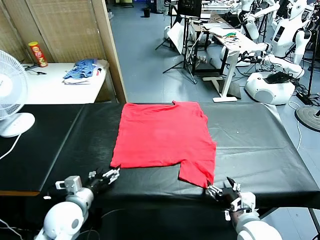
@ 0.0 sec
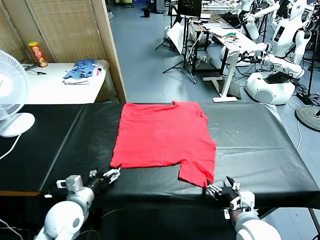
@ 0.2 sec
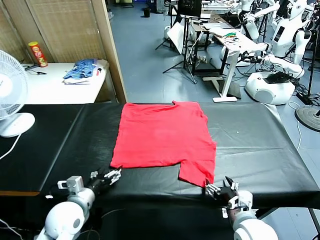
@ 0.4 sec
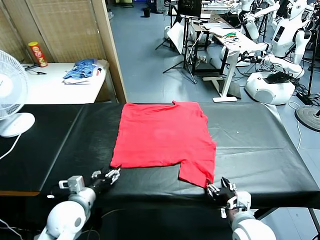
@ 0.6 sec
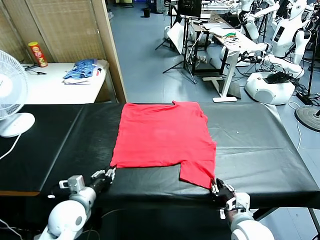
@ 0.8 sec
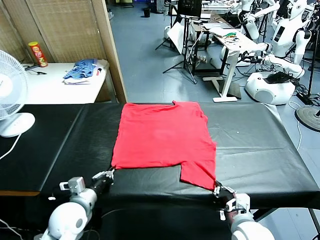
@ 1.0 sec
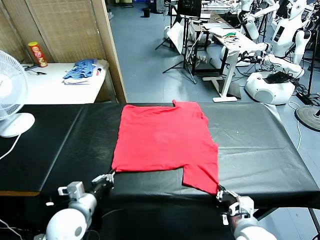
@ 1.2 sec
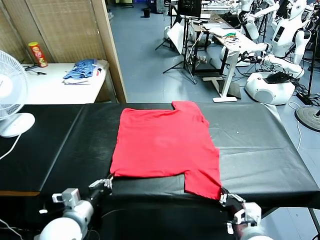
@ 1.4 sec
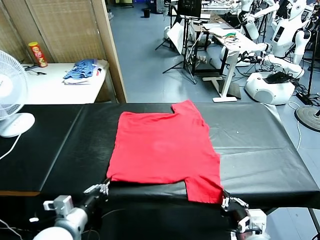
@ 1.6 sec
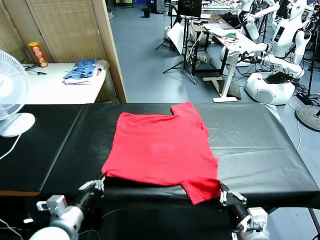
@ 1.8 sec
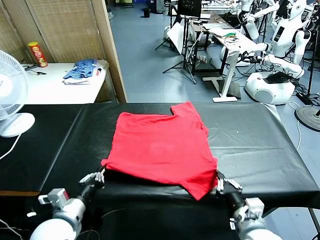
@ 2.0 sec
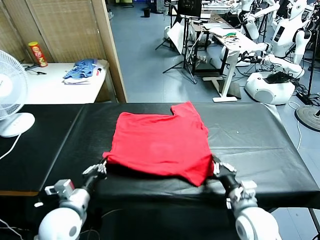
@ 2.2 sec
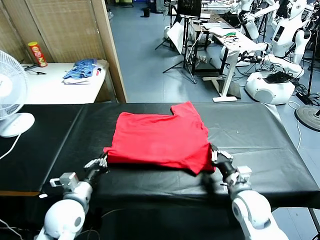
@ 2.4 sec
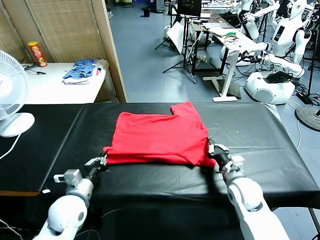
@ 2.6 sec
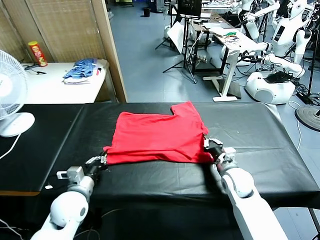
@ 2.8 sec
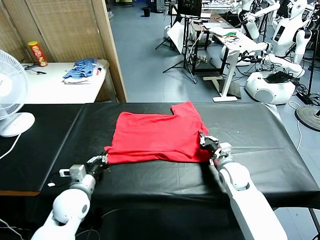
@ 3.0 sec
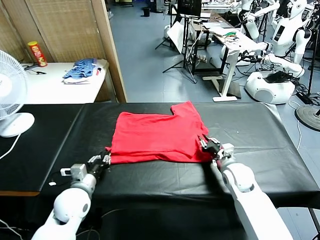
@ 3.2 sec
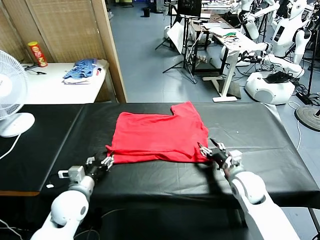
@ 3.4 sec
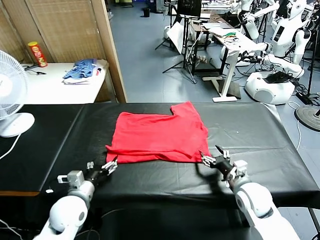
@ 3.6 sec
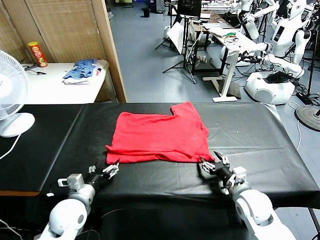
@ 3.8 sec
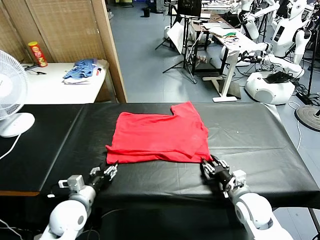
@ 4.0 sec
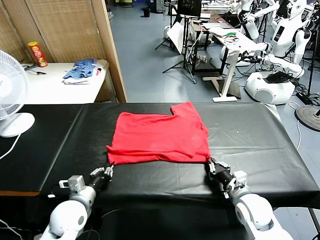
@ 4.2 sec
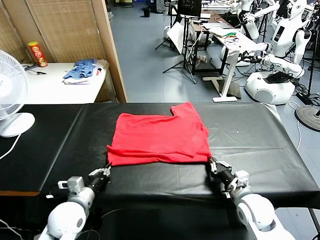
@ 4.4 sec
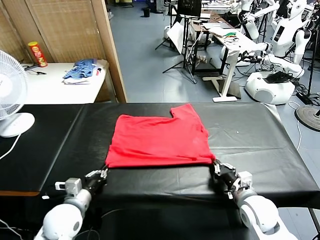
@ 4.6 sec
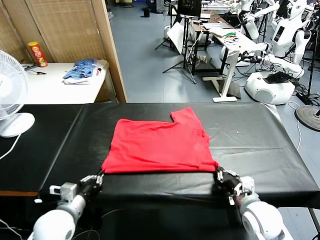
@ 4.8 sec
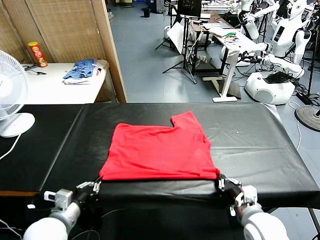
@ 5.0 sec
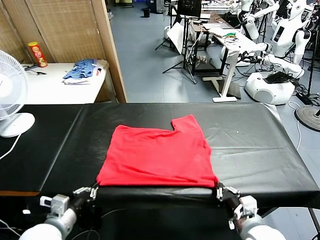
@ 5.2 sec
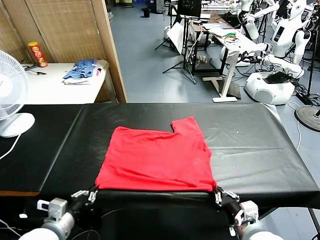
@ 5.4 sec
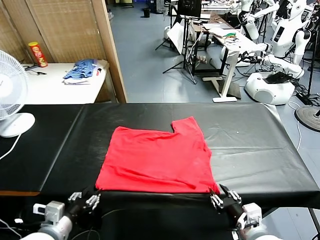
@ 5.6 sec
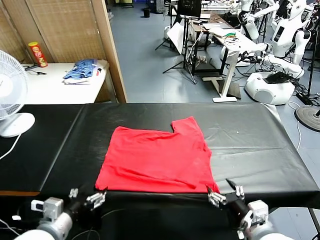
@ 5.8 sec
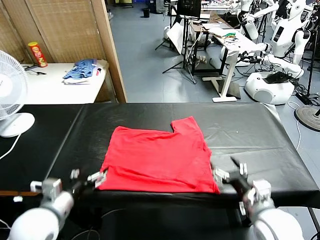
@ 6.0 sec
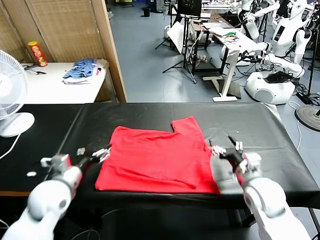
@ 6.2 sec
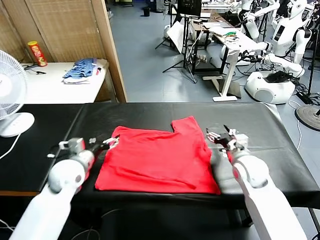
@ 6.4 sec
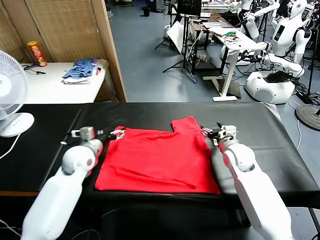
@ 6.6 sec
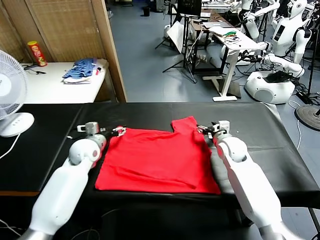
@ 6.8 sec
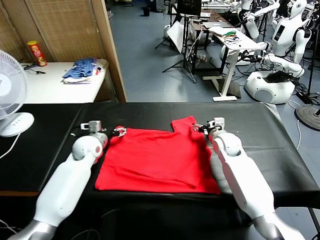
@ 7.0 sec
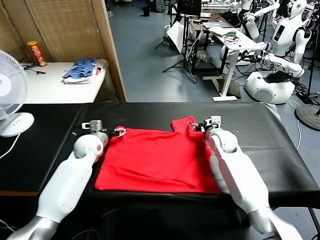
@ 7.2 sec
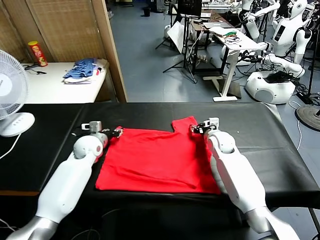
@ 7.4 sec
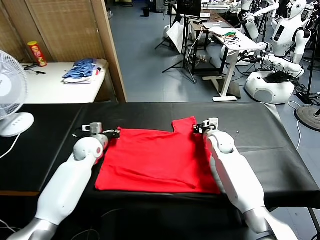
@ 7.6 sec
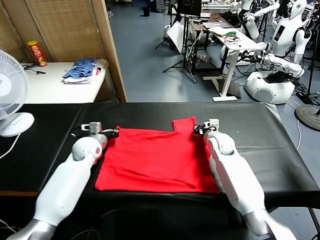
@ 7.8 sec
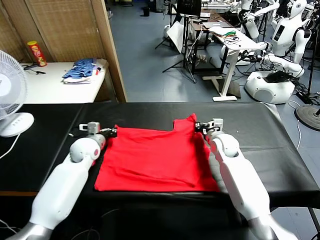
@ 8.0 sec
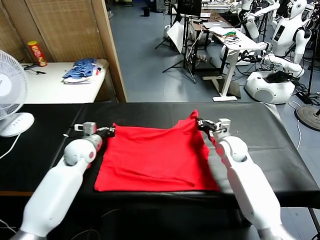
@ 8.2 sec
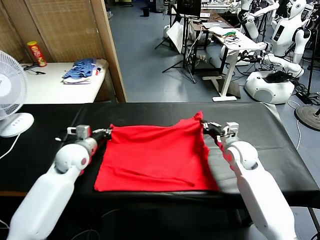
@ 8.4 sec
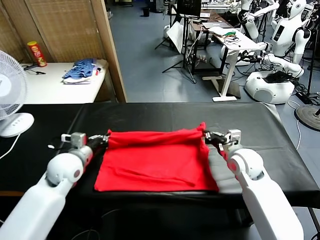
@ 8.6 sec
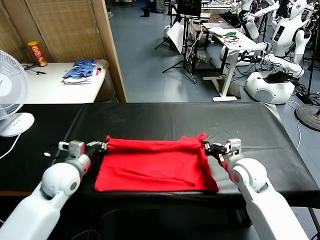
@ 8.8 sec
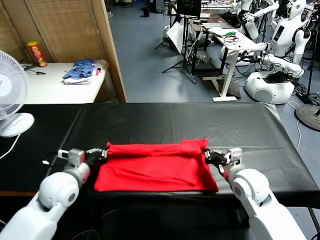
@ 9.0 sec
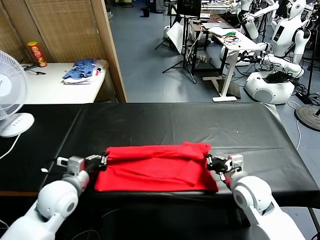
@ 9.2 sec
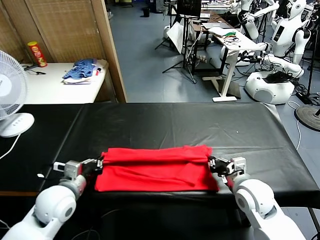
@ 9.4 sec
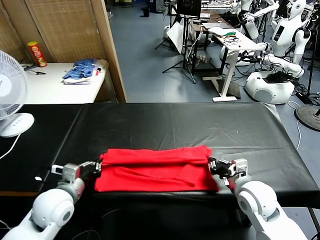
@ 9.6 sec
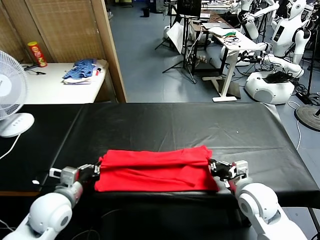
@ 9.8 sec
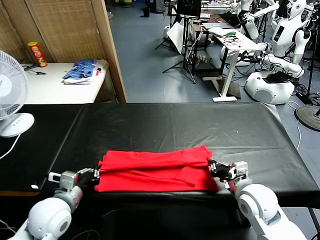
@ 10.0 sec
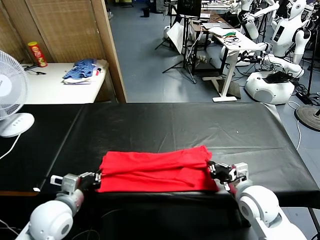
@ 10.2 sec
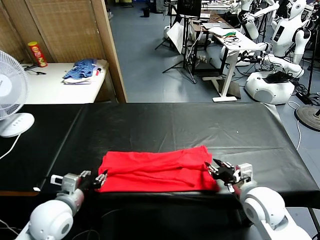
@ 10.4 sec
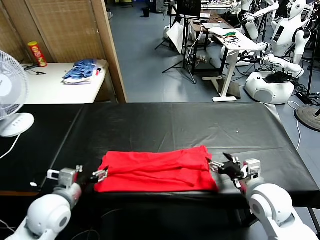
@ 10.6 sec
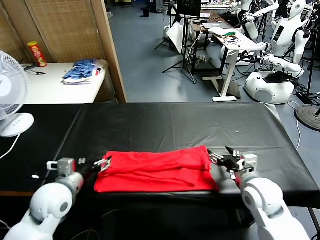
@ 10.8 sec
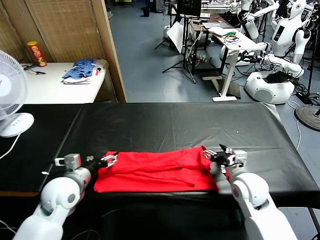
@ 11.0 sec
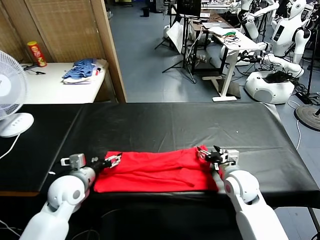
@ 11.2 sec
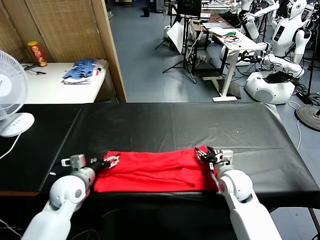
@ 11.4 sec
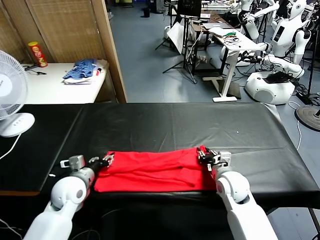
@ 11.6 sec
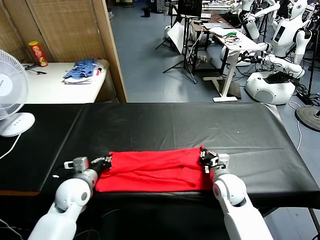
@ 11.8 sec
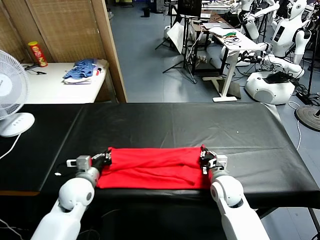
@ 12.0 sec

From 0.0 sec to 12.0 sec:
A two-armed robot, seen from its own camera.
Task of the whole recording: fold and organize the clothes.
Step, from 0.0 sec to 1.0 sec: use both grippers simultaneously to clamp the lower edge of the clothing fabric.
Step, from 1.4 sec to 3.4 sec: use both grippers to drag the lower edge of the fabric forward and fold it over the upper edge.
Step, from 3.6 sec to 5.6 sec: Drag the clothes downward with both gripper.
Step, from 5.8 sec to 7.8 sec: use both grippers simultaneously to clamp the upper edge of the clothing fabric.
Step, from 8.0 sec to 10.4 sec: use both grippers to drag the upper edge of the fabric backward and fold it over the lower edge.
From 1.6 sec to 3.0 sec: The right gripper heads forward, covering some 25 cm, while the left gripper shifts some 10 cm forward.
From 3.0 sec to 4.4 sec: The right gripper moves backward, approximately 10 cm, and opens, then closes again. The left gripper opens, then closes once more.
From 4.4 sec to 6.0 sec: The grippers both shift upward by approximately 10 cm. The right gripper travels backward and back again, about 10 cm each way, and opens up. Meanwhile the left gripper opens up.
From 6.0 sec to 7.6 sec: The two grippers go about 25 cm forward. The left gripper closes its fingers; the right gripper closes its fingers.
From 7.6 sec to 9.0 sec: The grippers both shift backward by about 20 cm.
From 9.0 sec to 10.4 sec: The left gripper moves backward, roughly 5 cm, and opens its fingers, while the right gripper ends up some 5 cm from where it was, and opens.
From 10.4 sec to 12.0 sec: The right gripper is displaced downward, forward and to the left by about 15 cm, and closes up, while the left gripper shifts some 10 cm forward and downward, and closes its fingers.

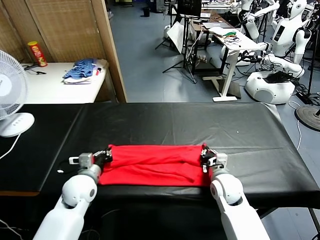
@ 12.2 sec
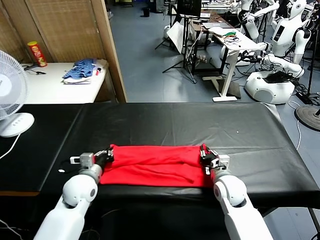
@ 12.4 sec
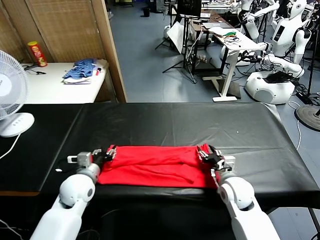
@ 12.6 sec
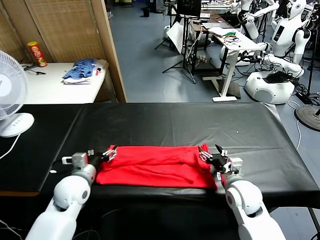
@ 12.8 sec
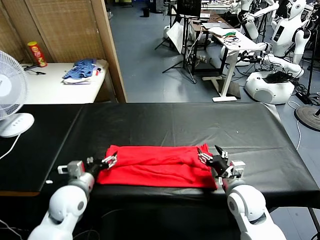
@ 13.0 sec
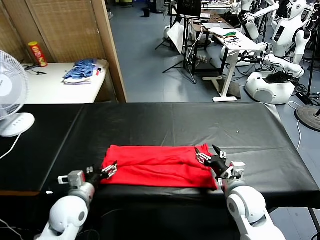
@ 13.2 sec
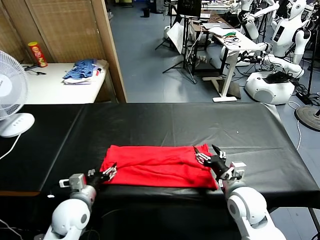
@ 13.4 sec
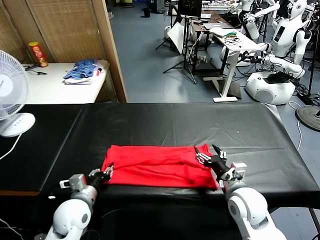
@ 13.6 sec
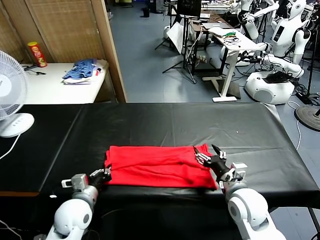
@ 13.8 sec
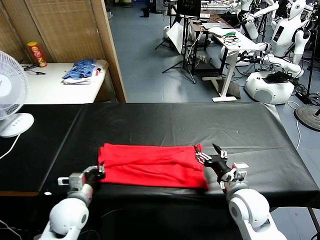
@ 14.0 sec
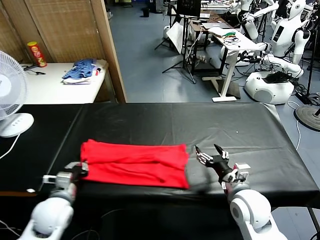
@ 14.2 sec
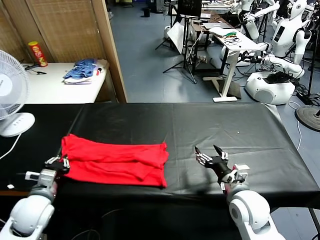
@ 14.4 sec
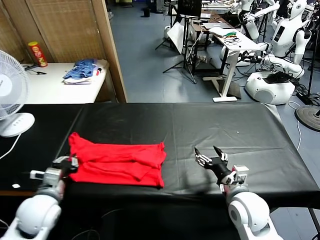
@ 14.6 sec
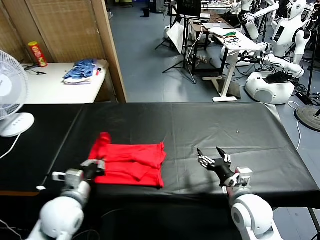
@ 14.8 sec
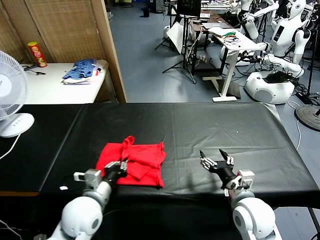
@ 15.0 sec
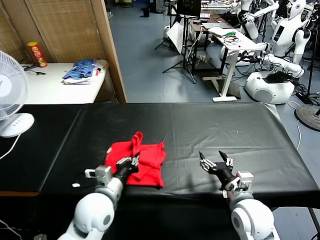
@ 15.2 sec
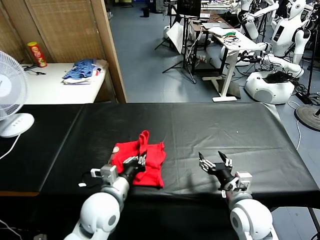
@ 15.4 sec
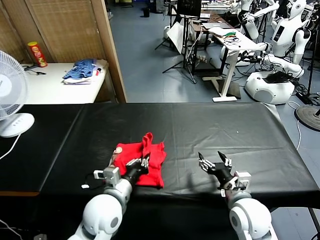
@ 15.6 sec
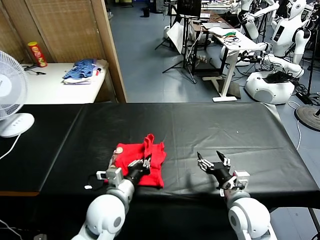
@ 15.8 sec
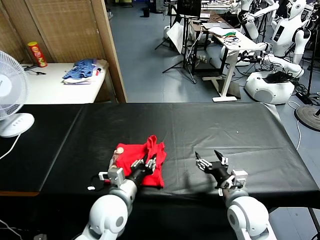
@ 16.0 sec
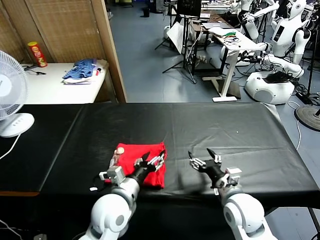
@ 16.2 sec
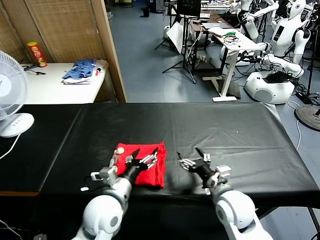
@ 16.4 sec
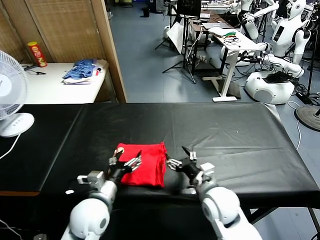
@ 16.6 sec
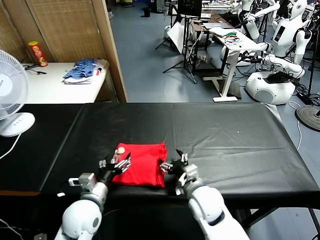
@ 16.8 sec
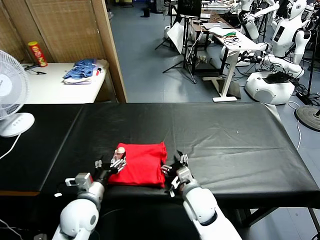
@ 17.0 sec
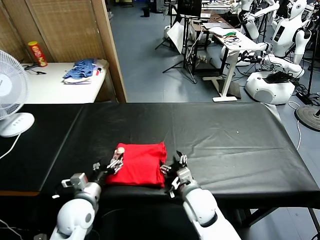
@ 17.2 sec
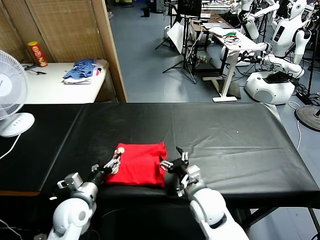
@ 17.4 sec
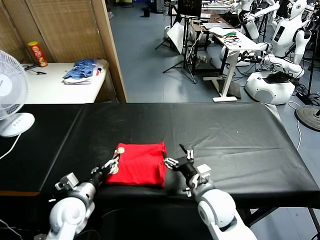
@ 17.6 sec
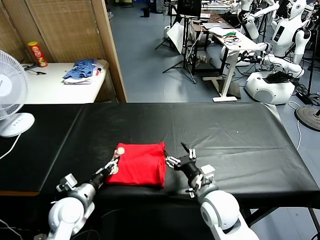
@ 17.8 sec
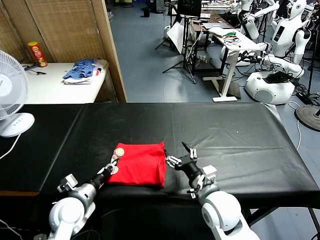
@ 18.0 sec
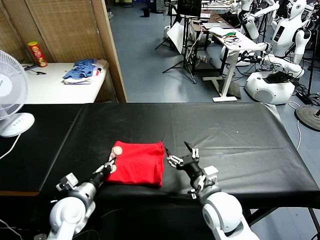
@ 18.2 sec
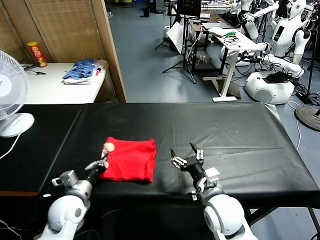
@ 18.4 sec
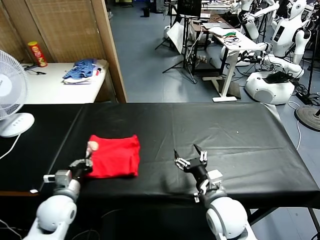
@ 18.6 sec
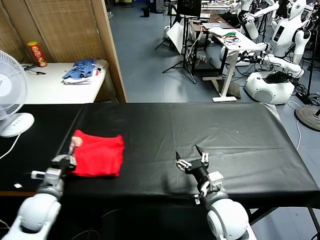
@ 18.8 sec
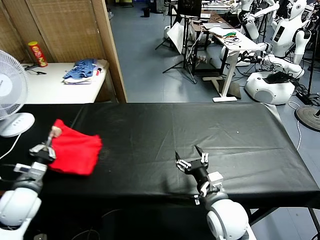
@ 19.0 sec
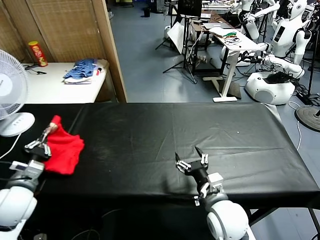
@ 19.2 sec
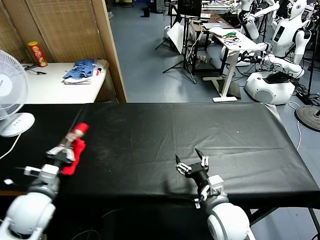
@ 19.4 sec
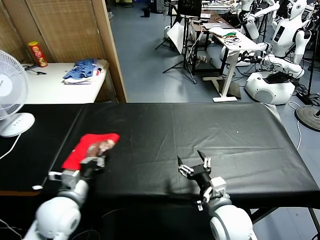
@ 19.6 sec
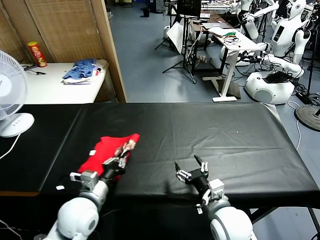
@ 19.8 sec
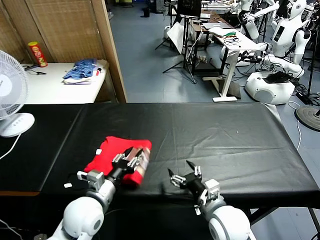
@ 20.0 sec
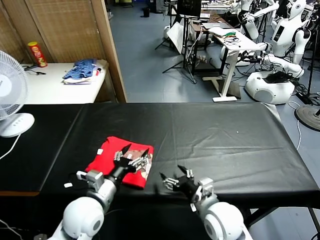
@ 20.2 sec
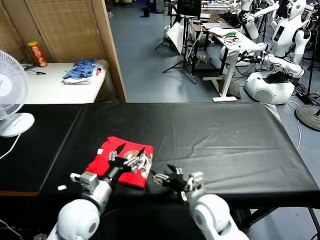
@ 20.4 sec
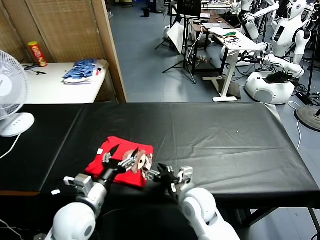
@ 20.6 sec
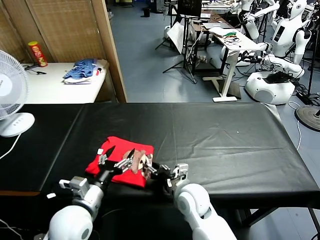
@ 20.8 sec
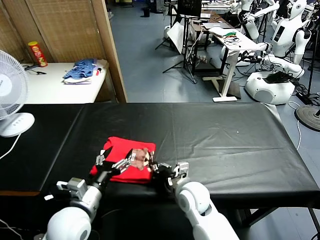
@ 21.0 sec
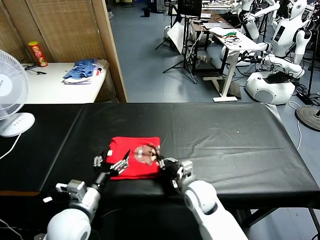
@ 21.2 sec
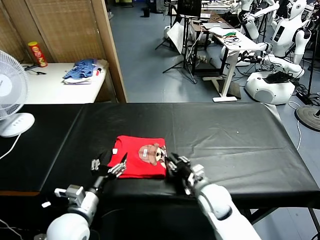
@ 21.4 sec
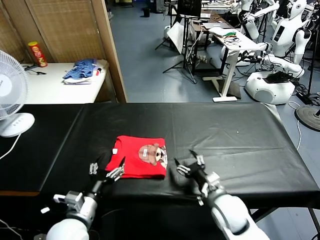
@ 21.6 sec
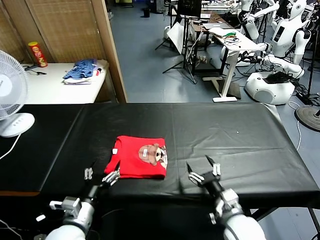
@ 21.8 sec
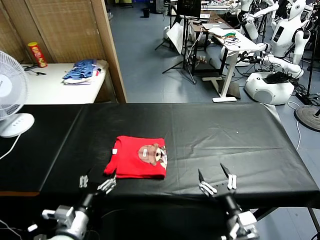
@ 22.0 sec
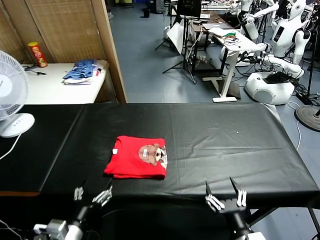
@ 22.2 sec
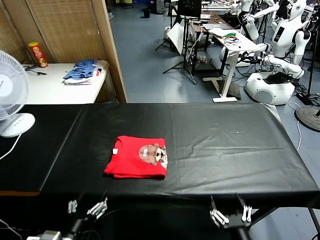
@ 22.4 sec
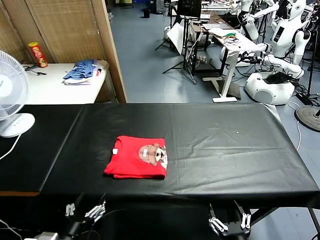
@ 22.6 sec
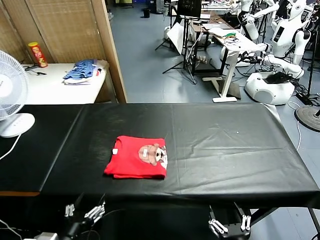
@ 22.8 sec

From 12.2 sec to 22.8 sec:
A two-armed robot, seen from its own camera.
Task of the whole recording: fold and organize the clothes.
Step, from 12.2 sec to 14.0 sec: use the left gripper to clamp the left edge of the fabric.
Step, from 14.2 sec to 16.2 sec: use the left gripper to drag the left edge of the fabric to the left and folds it over the right edge.
Step, from 16.4 sec to 20.0 sec: Flip the folded clothes over with left gripper.
Step, from 20.2 sec to 21.4 sec: Drag the clothes to the center of the table.
From 12.2 sec to 13.8 sec: The right gripper moves backward and upward, approximately 10 cm, and opens up; the left gripper heads backward, covering some 5 cm, and opens, then closes once more.
From 13.8 sec to 15.2 sec: The left gripper shifts approximately 10 cm to the right and upward.
From 15.2 sec to 16.8 sec: The left gripper shifts by about 5 cm, and opens up. The right gripper travels to the left and forward by approximately 10 cm.
From 16.8 sec to 18.2 sec: The right gripper shifts by some 5 cm; the left gripper goes approximately 5 cm to the left, and closes.
From 18.2 sec to 19.8 sec: The left gripper is displaced upward by roughly 5 cm, and travels to the left and back again, approximately 10 cm each way.
From 19.8 sec to 21.2 sec: The right gripper heads forward, to the left and downward, covering about 15 cm, and closes up; the left gripper opens its fingers.
From 21.2 sec to 22.8 sec: The right gripper is displaced backward by approximately 25 cm, and opens its fingers. The left gripper shifts roughly 15 cm backward.
